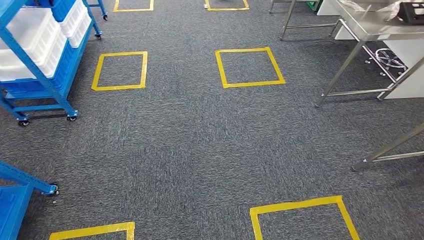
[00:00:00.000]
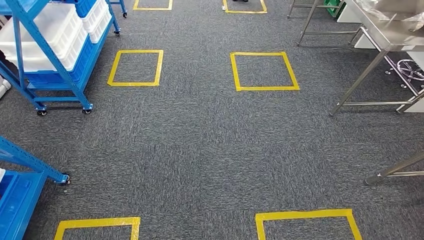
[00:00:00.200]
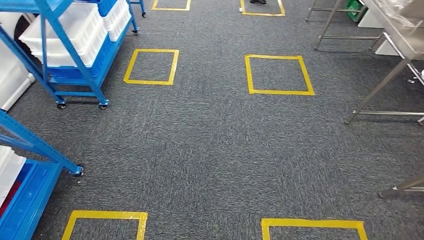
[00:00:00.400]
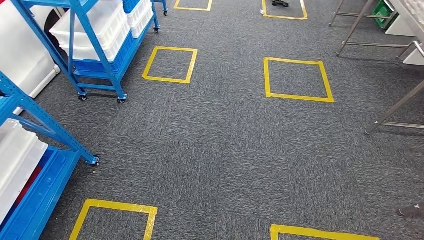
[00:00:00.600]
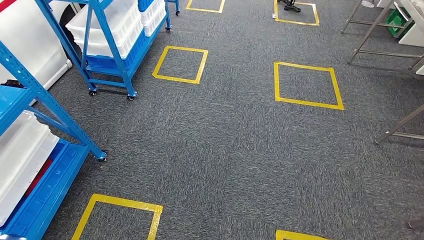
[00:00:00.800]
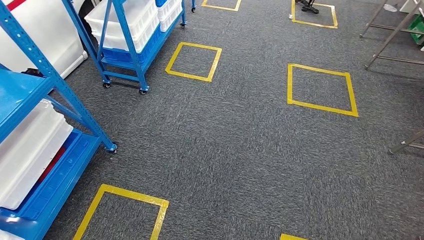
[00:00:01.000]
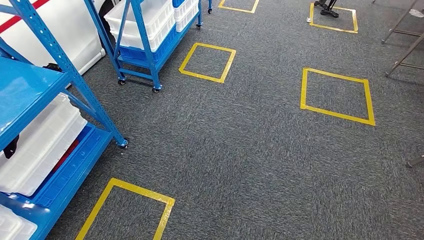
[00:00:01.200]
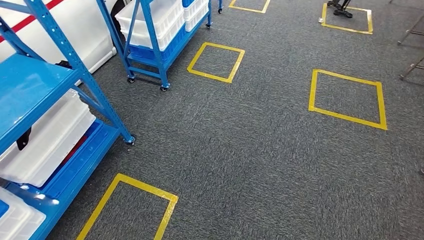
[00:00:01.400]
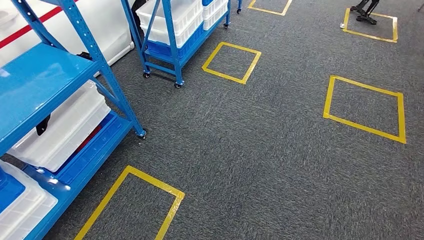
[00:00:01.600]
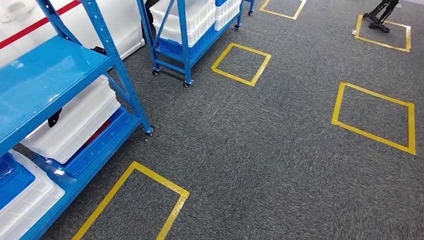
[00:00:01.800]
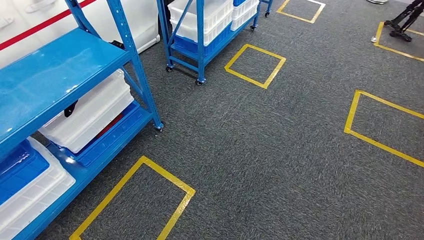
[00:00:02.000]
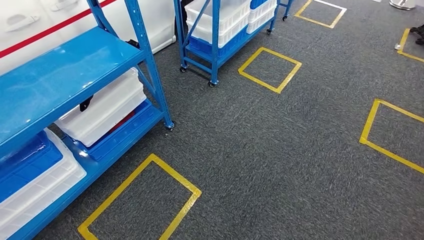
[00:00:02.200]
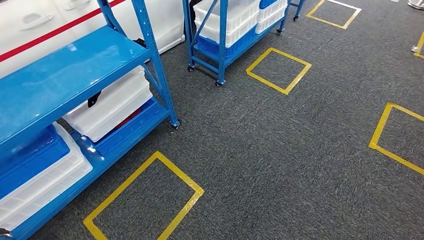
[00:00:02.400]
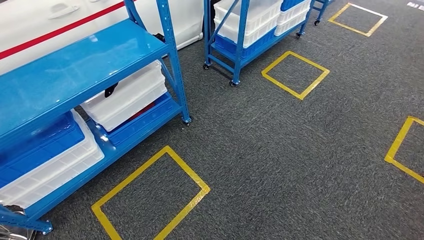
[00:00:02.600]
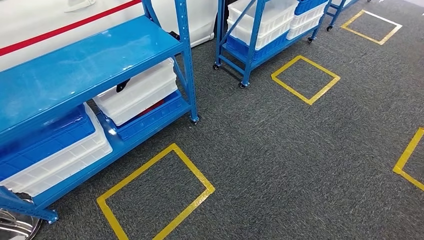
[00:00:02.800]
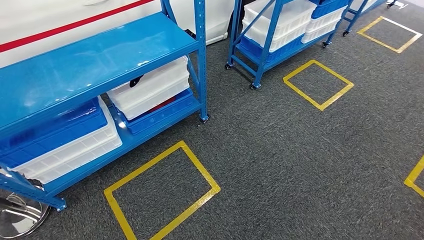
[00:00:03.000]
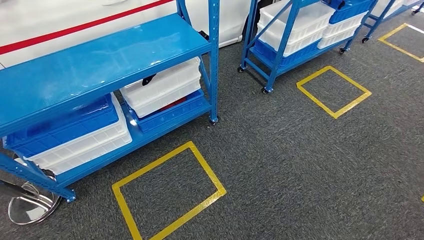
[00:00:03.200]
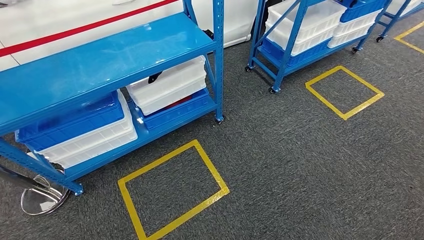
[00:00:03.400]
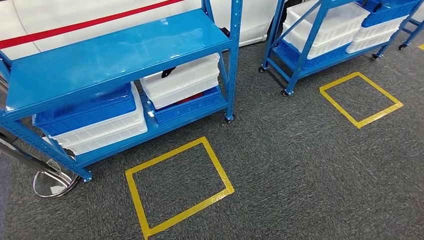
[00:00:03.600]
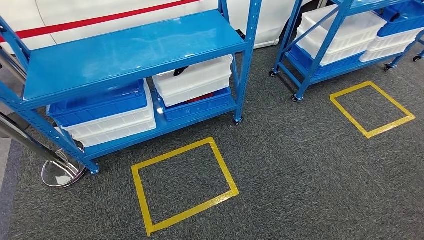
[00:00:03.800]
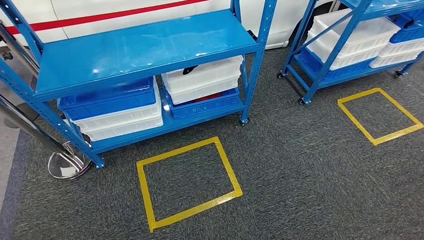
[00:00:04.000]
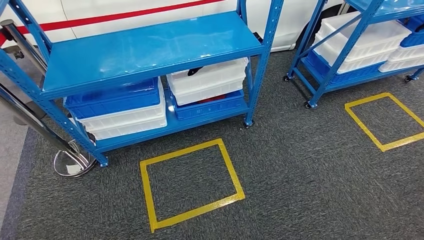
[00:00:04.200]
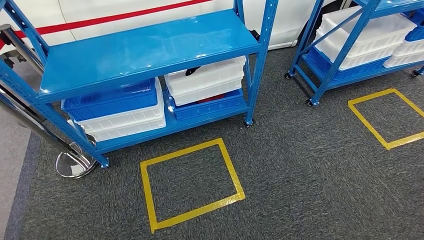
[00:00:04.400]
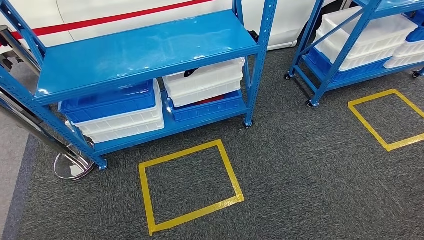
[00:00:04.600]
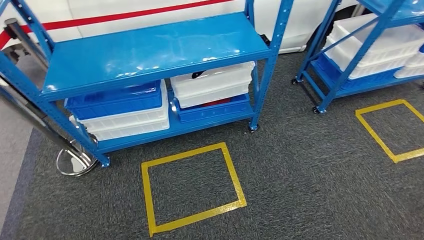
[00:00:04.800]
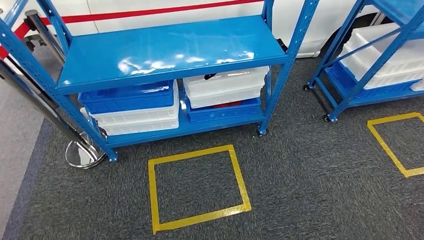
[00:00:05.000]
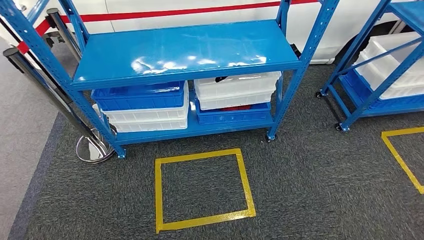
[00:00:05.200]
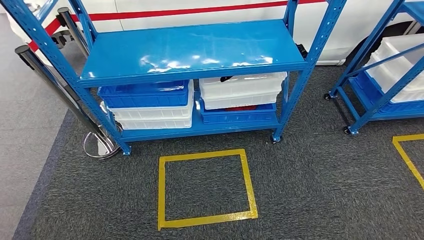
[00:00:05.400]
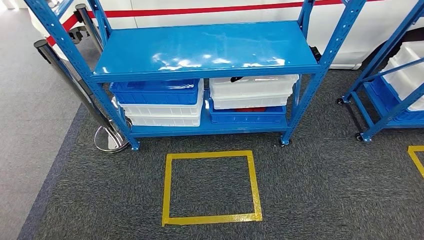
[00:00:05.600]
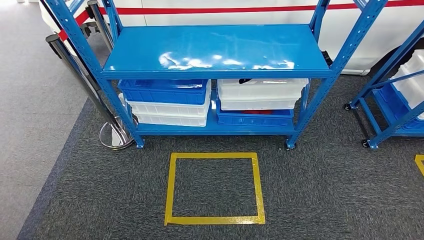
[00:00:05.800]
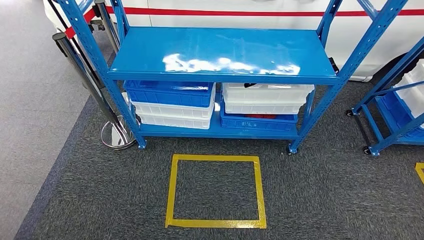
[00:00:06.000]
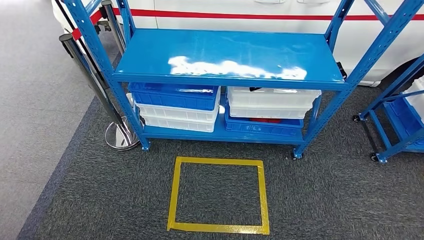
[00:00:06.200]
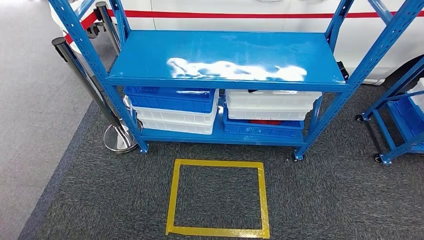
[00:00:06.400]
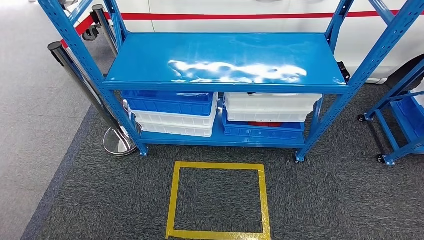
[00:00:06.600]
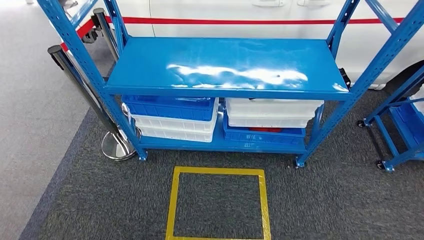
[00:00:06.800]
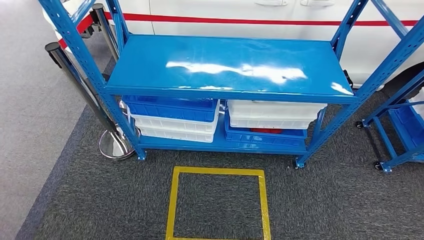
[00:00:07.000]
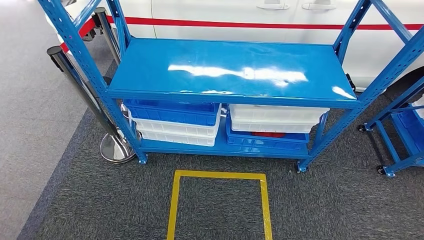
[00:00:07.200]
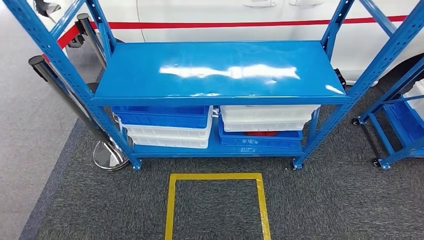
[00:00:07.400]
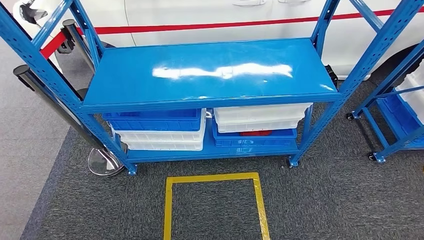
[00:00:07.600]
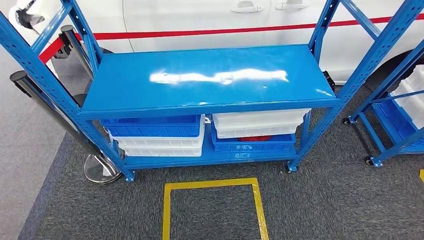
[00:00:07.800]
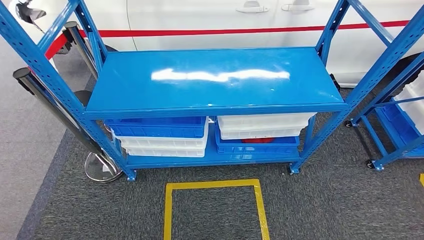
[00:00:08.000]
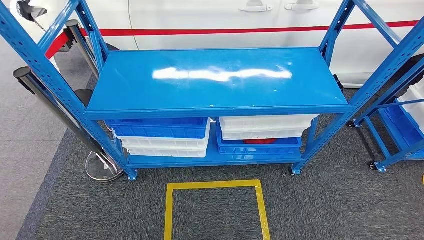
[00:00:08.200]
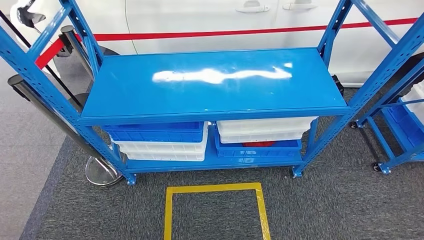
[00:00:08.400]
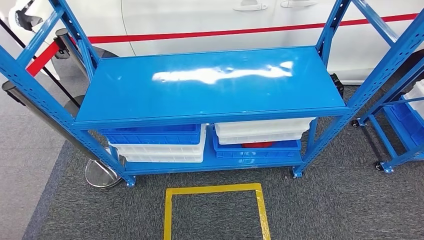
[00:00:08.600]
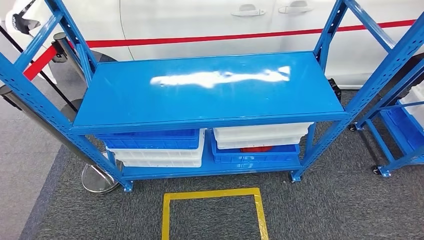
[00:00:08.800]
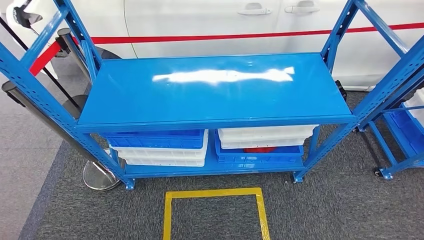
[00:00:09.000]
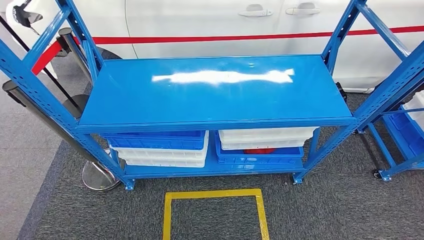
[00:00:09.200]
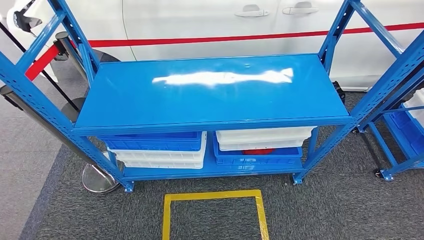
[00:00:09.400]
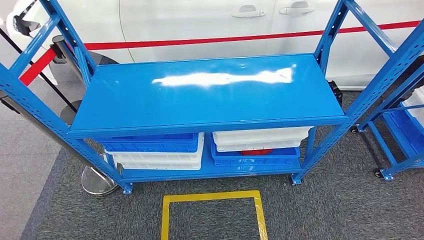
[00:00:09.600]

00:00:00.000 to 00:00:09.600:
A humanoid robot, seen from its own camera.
Step, 00:00:00.000 to 00:00:09.600: Move to the initial position of the shelf.
